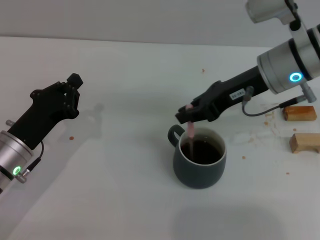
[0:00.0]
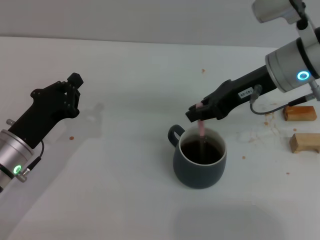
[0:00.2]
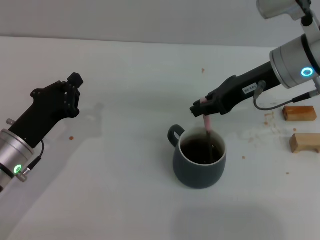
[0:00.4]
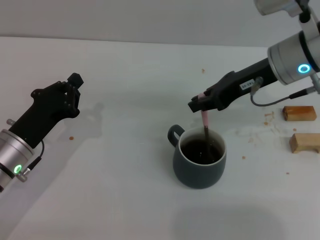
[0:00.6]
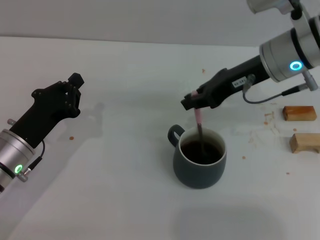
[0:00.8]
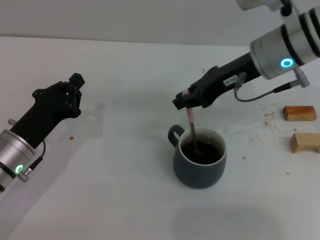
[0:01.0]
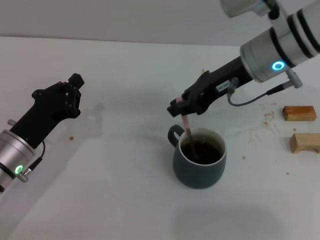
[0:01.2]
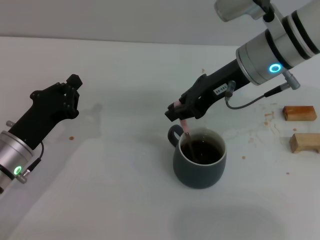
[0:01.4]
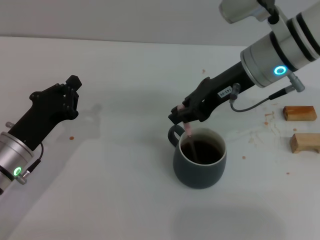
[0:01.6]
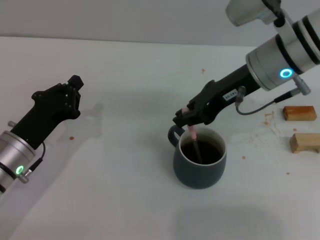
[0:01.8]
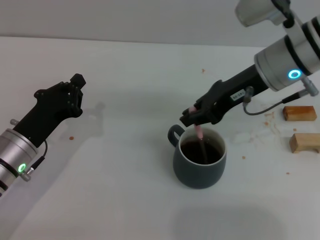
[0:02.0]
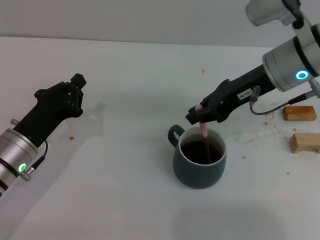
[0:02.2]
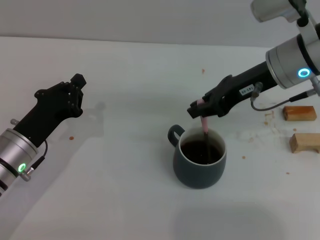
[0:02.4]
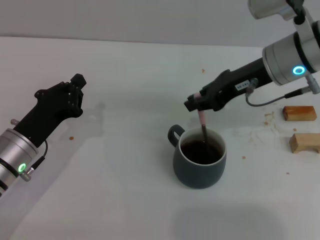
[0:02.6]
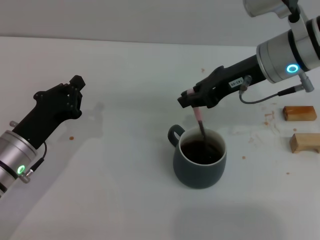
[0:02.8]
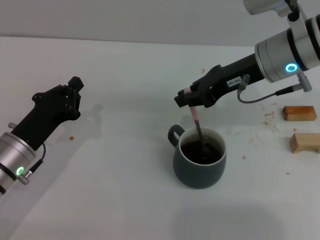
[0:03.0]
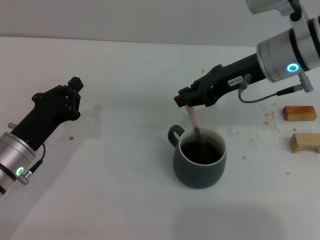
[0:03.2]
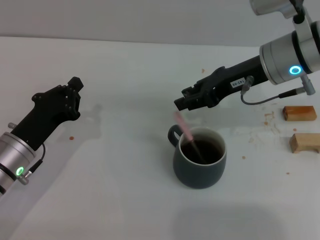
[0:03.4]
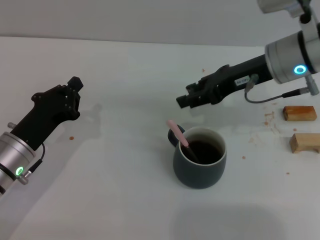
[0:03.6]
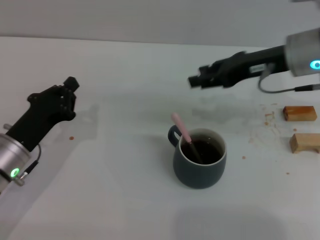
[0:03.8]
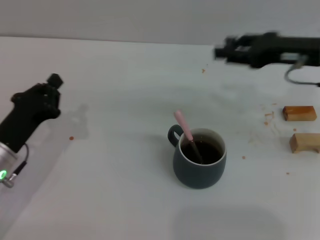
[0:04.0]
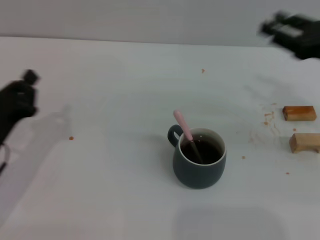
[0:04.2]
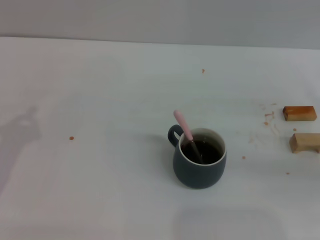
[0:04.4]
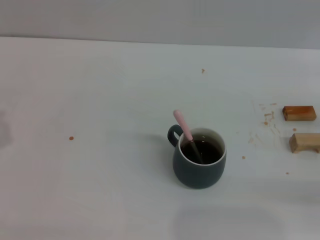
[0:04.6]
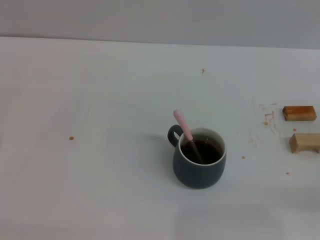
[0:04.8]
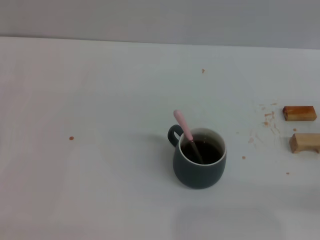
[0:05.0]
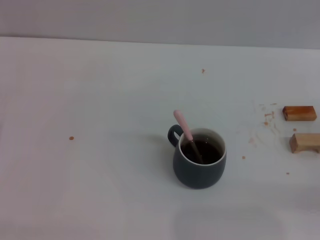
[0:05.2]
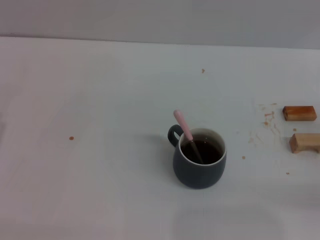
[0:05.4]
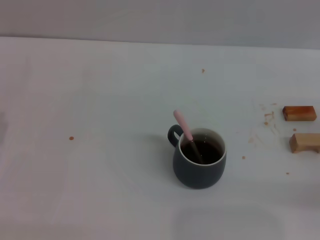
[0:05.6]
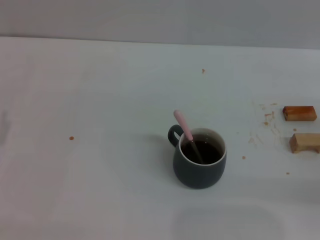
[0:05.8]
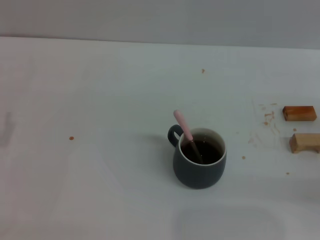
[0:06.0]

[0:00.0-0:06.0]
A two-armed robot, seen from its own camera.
Task of the whole recording: Move the grey cup to the center, lift the pink spoon, stir it three times in the cup, and put the spoon into the cup.
Step, 0:00.0 to 0:04.0: Stir the coffee in the cup with the right gripper.
0:00.0 to 0:03.0: There are only small adjustments of the grippers.
0:03.0 to 0:04.4: The right gripper moves to the right and backward, approximately 20 cm, and opens. Meanwhile the left gripper moves to the left, about 10 cm.

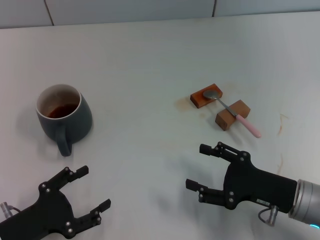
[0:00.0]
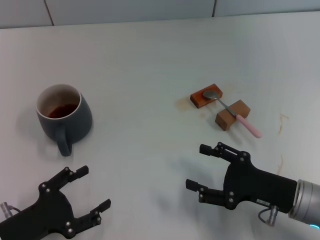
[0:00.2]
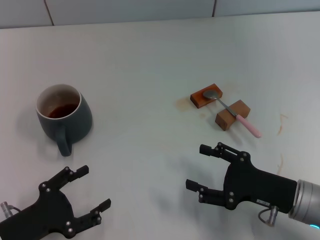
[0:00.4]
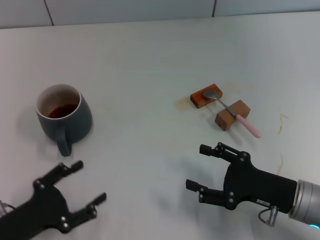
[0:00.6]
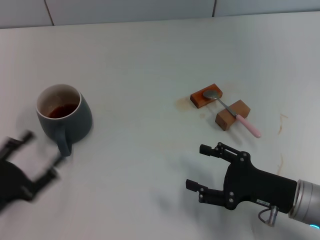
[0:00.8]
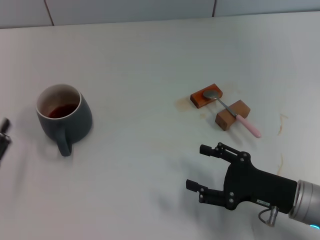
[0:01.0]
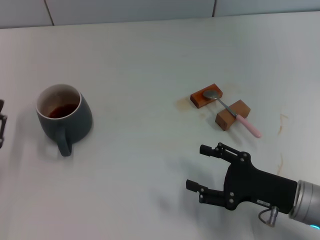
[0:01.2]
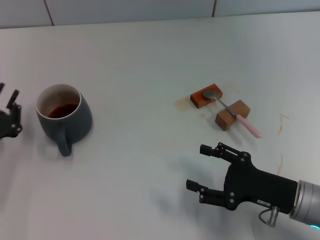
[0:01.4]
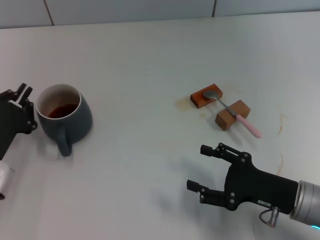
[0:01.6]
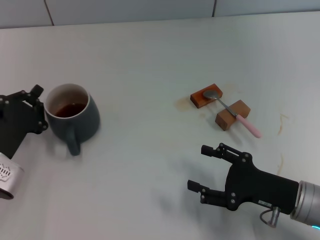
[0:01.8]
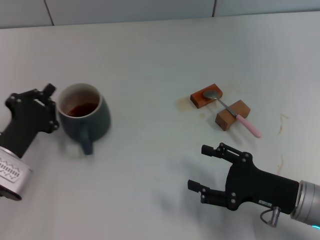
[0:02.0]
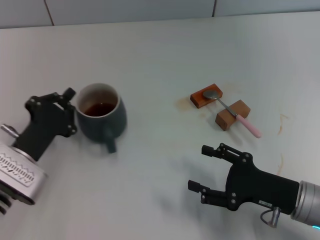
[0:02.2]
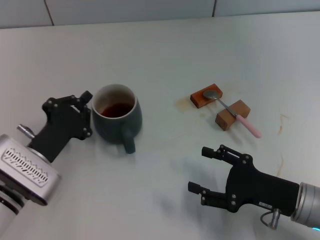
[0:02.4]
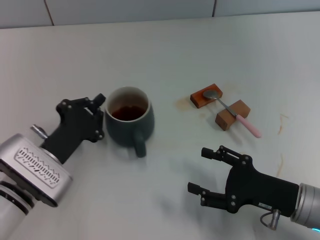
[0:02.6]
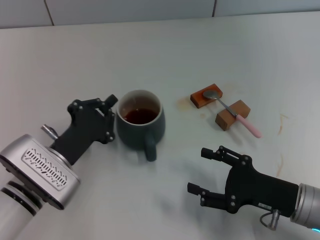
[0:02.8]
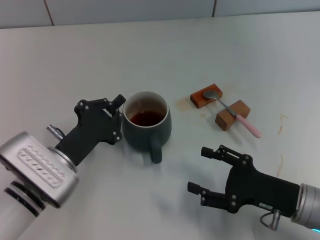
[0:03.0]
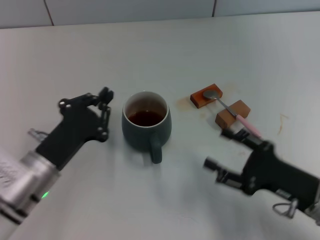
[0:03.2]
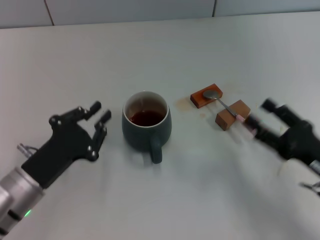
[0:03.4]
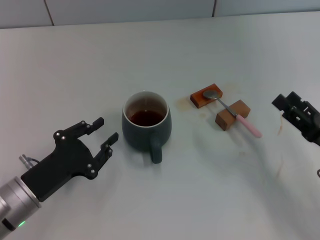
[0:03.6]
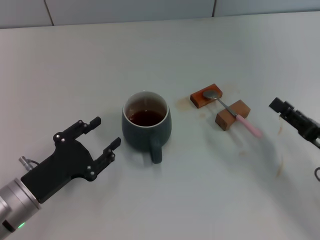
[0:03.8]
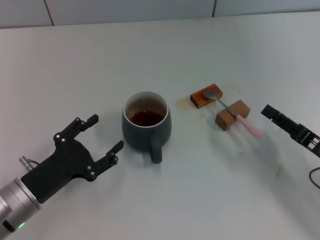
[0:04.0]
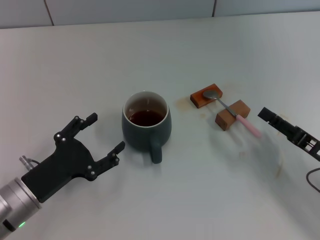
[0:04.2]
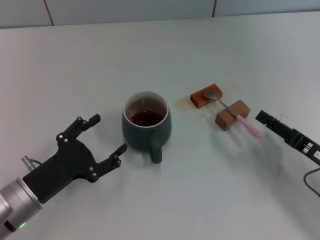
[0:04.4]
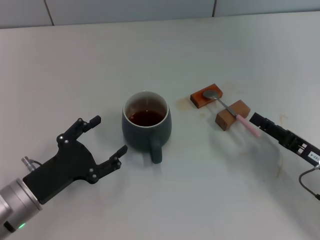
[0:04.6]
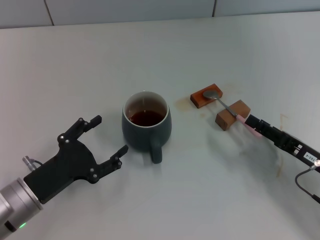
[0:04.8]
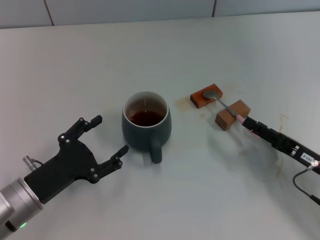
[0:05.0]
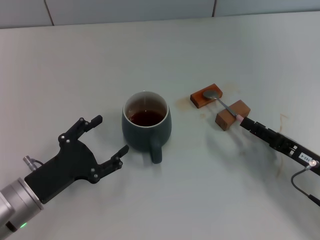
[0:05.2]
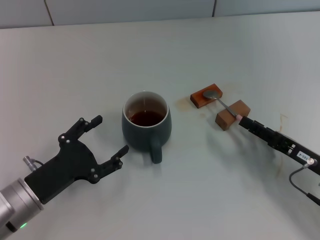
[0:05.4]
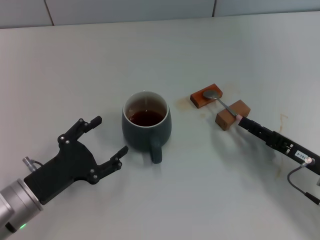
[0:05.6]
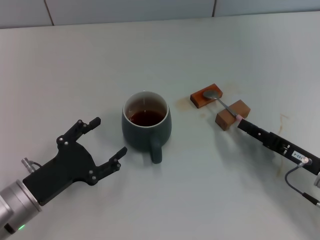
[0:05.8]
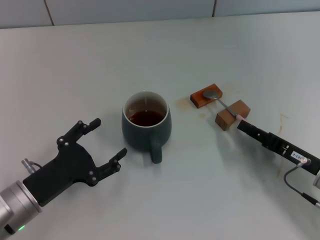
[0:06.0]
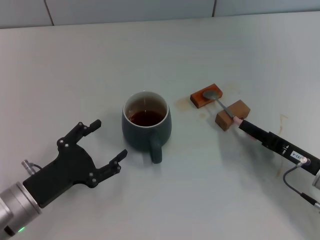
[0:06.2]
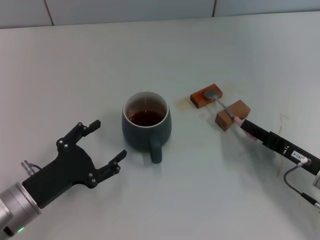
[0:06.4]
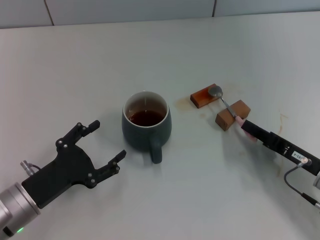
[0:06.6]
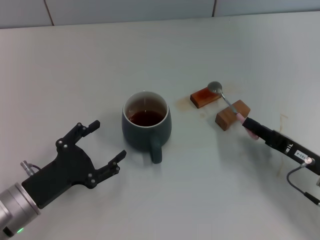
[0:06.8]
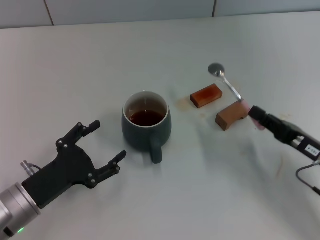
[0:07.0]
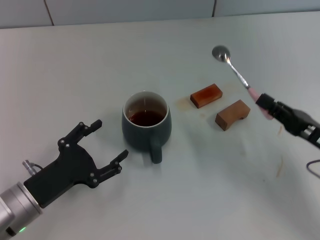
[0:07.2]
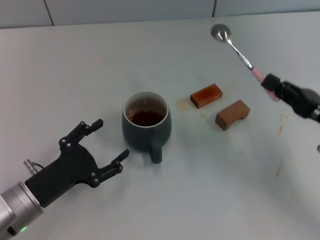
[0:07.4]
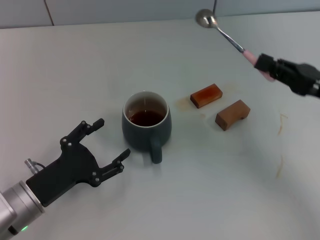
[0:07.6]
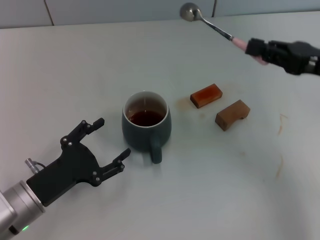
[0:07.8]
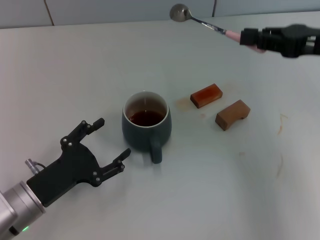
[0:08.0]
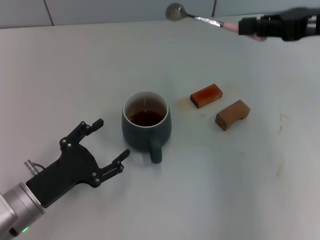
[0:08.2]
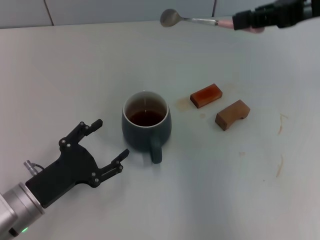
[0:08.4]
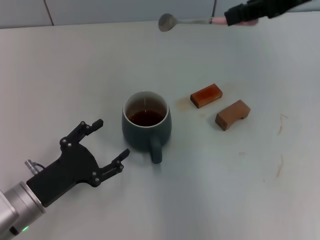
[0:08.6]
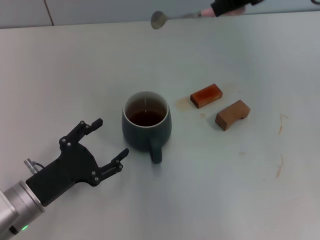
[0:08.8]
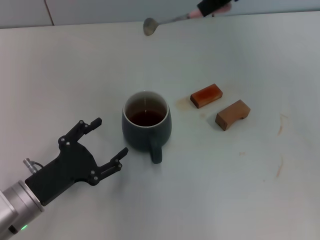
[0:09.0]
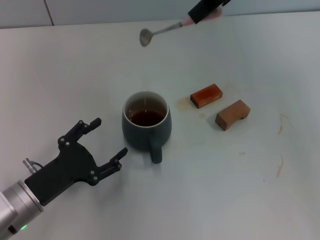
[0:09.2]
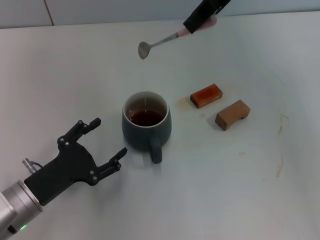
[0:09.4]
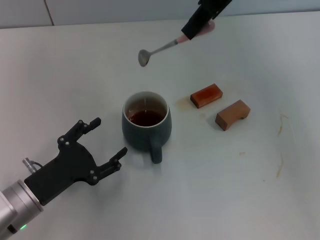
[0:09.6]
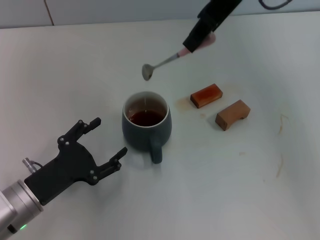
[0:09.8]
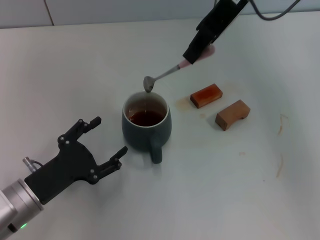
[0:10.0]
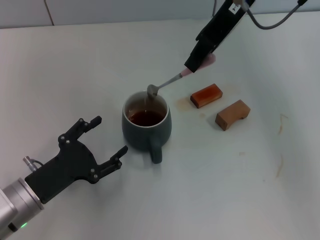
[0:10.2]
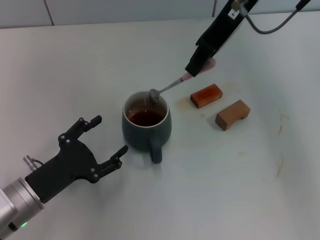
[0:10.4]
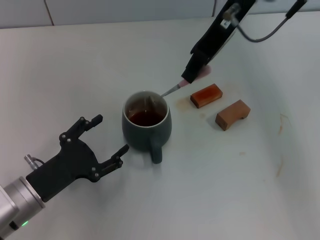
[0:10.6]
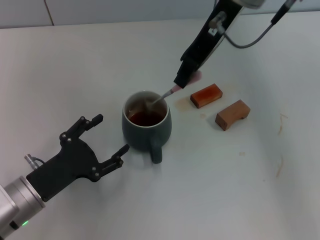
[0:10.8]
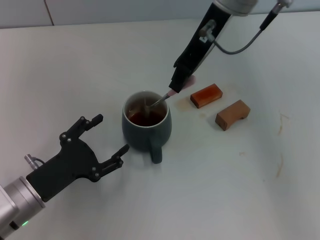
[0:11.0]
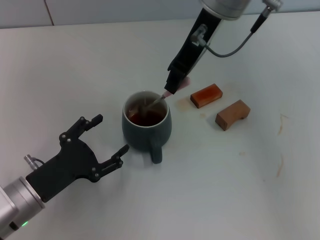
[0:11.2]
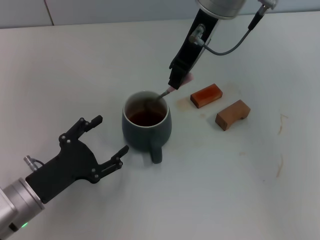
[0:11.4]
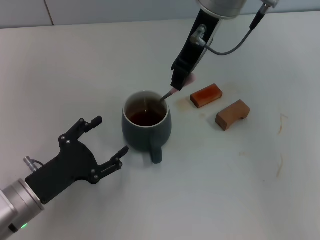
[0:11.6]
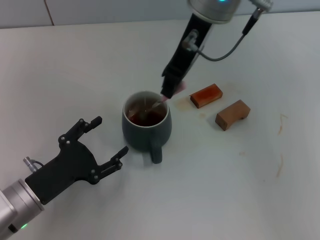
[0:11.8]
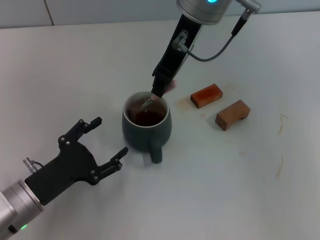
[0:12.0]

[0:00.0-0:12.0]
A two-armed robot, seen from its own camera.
Task of the whole recording: Move the grey cup to the center, lift the pink spoon, stir it three times in the cup, and put the spoon into the cup.
Step, 0:00.0 to 0:03.0: Move the cup with coffee to the center of view with the left gripper.
Step, 0:03.2 to 0:07.0: Pick up the spoon with the right gripper.
0:00.0 to 0:01.6: The left gripper goes about 10 cm forward, and closes up.
0:01.6 to 0:03.0: The left gripper moves to the right, some 10 cm.
0:03.0 to 0:04.4: The left gripper travels to the left by some 5 cm, and opens its fingers; the right gripper travels to the right by roughly 5 cm.
0:04.4 to 0:06.0: The right gripper closes its fingers.
0:06.0 to 0:07.6: The right gripper is displaced upward and forward by some 15 cm, and closes.
0:07.6 to 0:09.0: The right gripper goes roughly 30 cm upward, to the left and forward.
0:09.0 to 0:10.4: The right gripper moves to the left, roughly 5 cm.
0:10.4 to 0:12.0: The right gripper goes roughly 5 cm to the left.

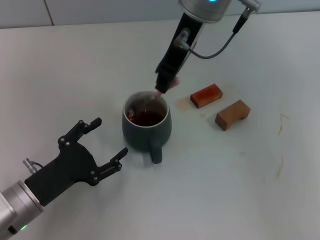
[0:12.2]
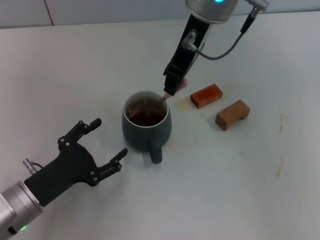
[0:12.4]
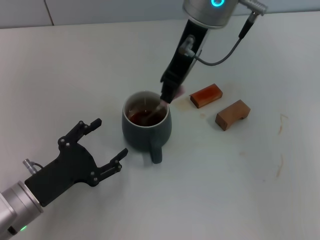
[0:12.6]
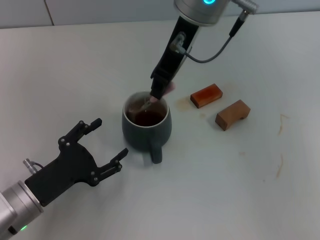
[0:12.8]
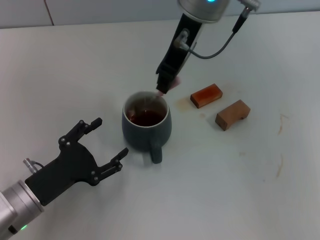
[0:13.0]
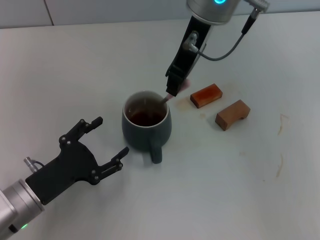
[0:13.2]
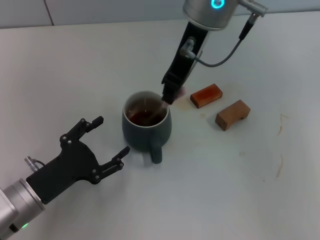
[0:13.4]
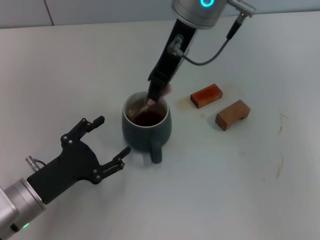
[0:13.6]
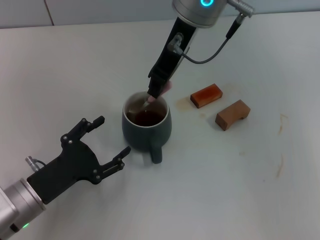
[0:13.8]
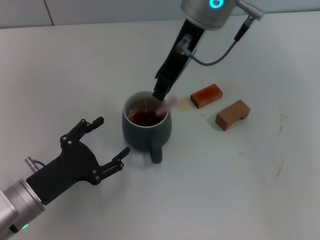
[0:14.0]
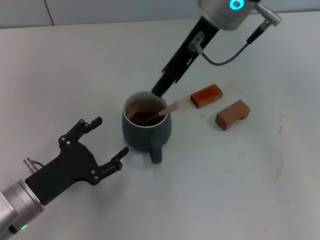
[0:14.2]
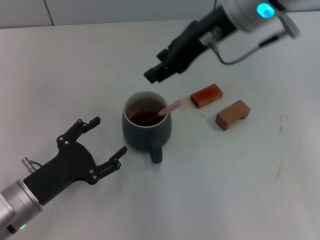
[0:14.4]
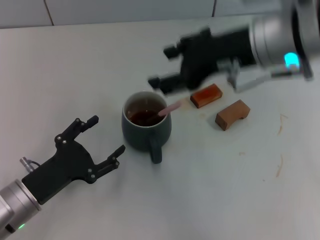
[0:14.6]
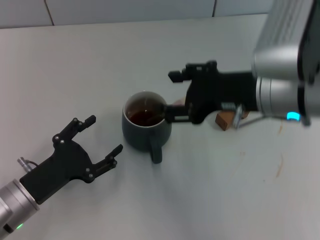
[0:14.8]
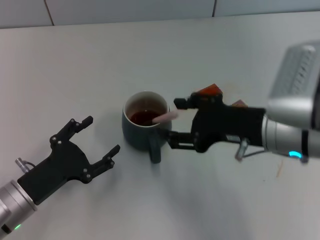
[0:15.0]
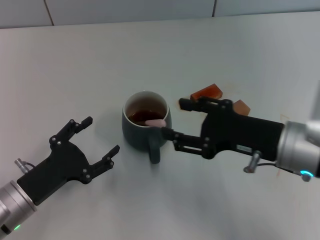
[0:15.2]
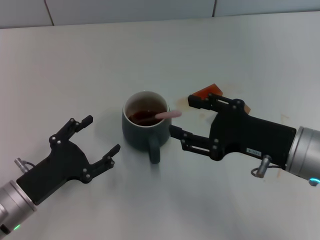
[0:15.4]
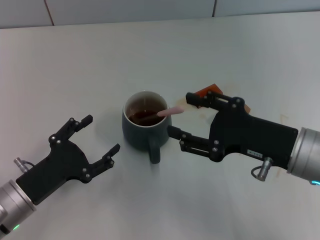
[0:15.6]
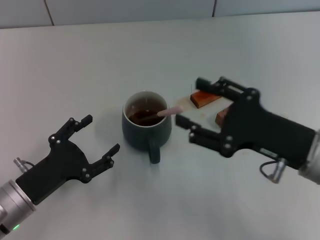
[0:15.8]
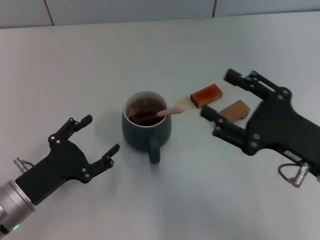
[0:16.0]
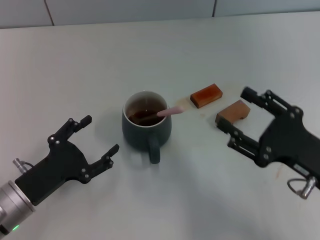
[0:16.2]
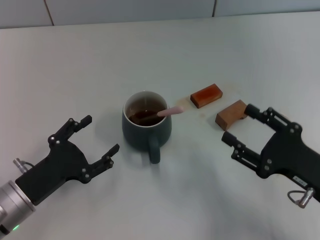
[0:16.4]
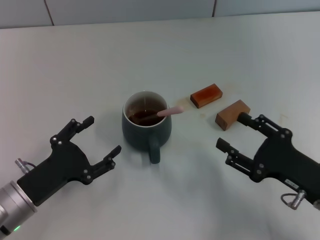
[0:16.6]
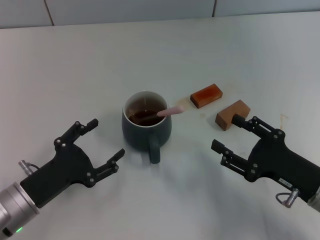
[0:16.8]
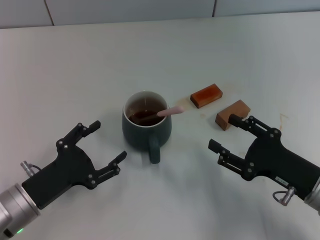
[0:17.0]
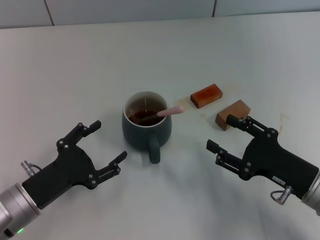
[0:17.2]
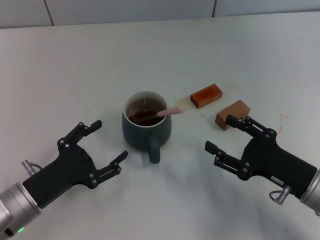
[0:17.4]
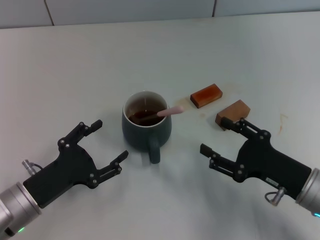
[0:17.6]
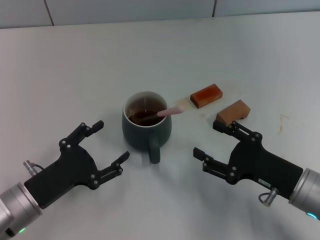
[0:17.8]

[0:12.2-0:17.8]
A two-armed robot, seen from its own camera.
Task of the whole recording: Move the grey cup to the center, lift the pink spoon, stir it three times in the cup, and put the spoon into the cup.
Step, 0:12.2 to 0:14.2: Stir the coffee in the cup with the right gripper.
0:12.2 to 0:13.6: Both grippers stay about where they are.
0:13.6 to 0:15.0: The right gripper shifts roughly 25 cm backward, downward and to the right, and opens its fingers.
0:15.0 to 0:16.4: The right gripper heads downward, to the right and backward, covering some 15 cm.
0:16.4 to 0:17.8: The grippers move only a little.
